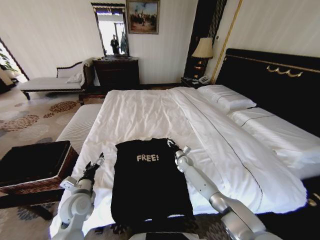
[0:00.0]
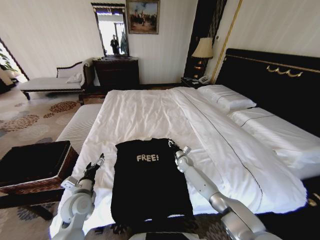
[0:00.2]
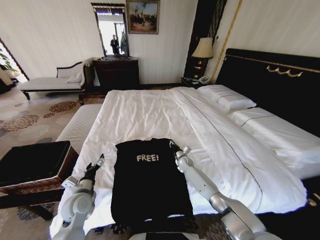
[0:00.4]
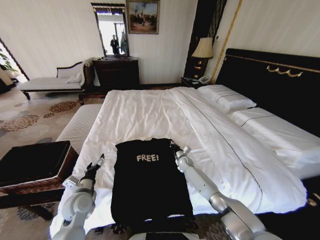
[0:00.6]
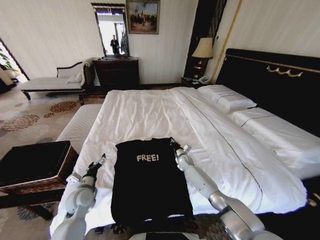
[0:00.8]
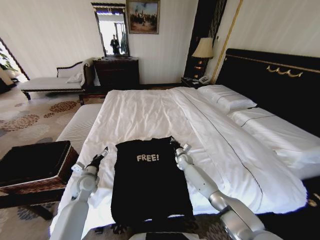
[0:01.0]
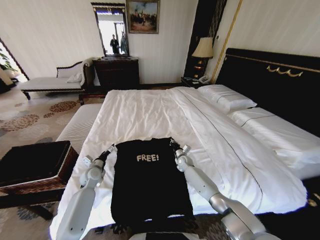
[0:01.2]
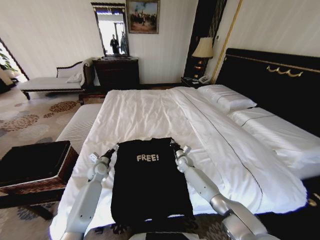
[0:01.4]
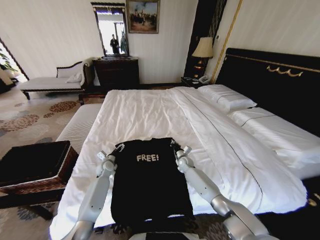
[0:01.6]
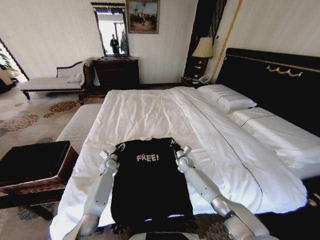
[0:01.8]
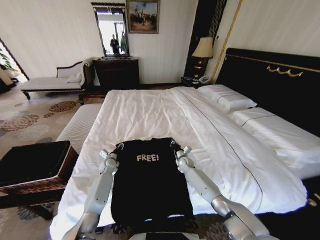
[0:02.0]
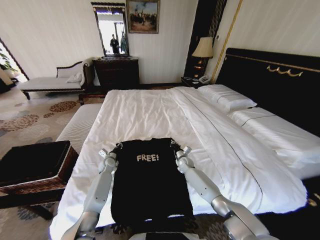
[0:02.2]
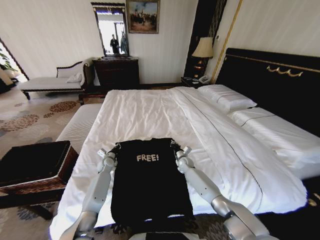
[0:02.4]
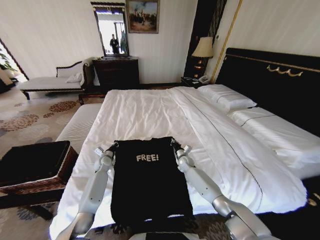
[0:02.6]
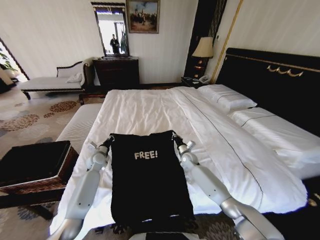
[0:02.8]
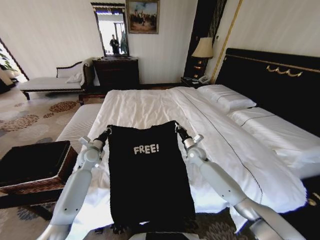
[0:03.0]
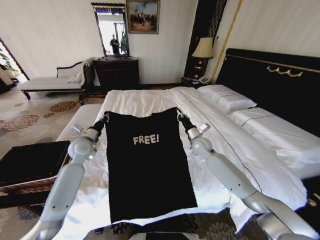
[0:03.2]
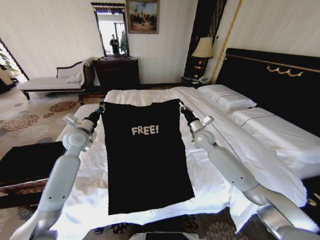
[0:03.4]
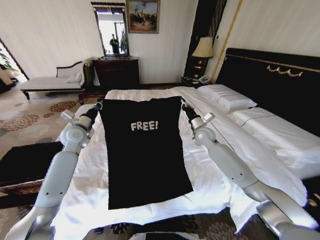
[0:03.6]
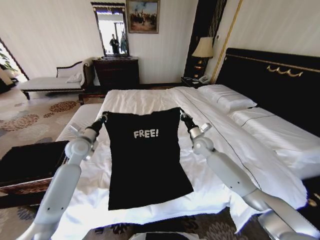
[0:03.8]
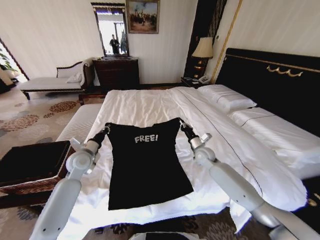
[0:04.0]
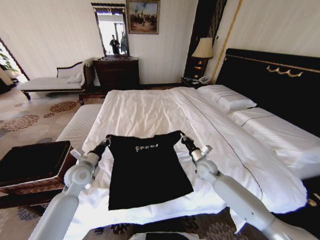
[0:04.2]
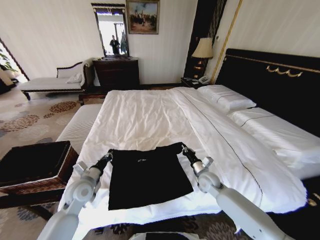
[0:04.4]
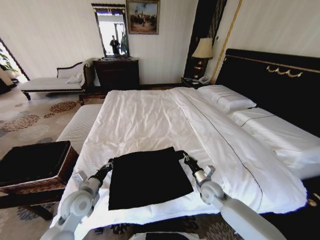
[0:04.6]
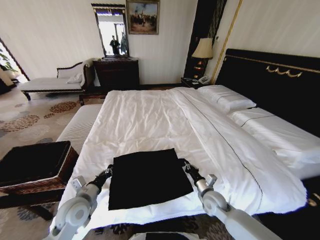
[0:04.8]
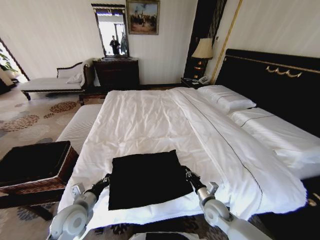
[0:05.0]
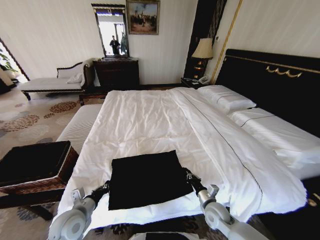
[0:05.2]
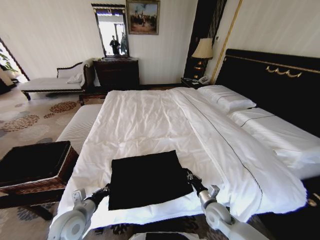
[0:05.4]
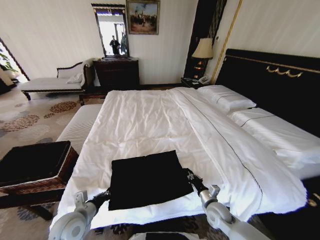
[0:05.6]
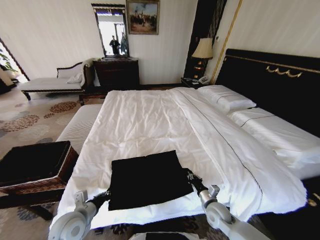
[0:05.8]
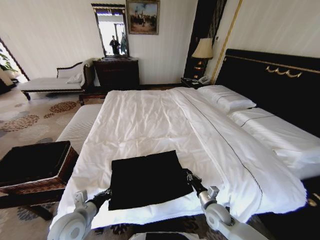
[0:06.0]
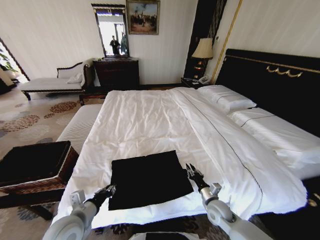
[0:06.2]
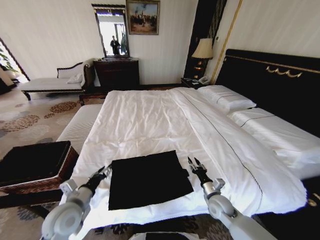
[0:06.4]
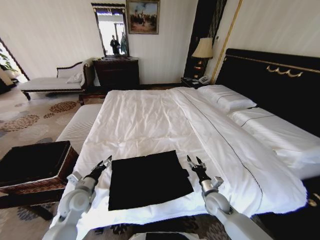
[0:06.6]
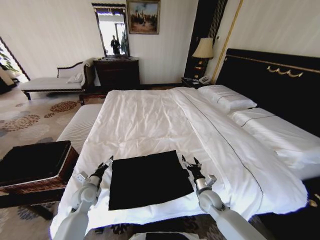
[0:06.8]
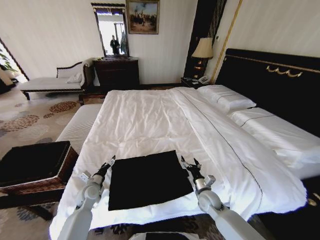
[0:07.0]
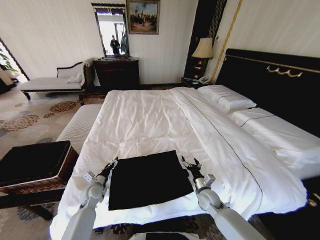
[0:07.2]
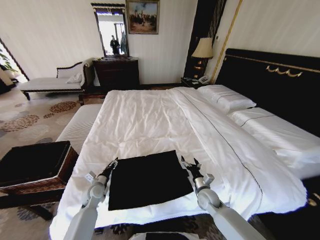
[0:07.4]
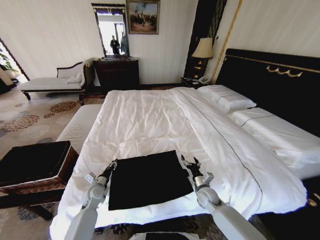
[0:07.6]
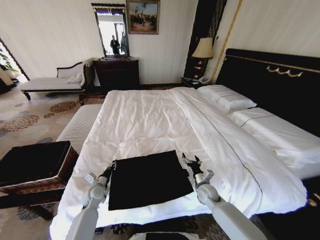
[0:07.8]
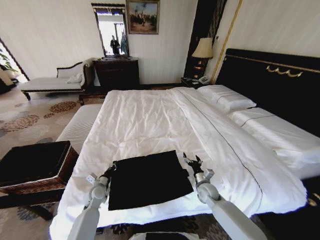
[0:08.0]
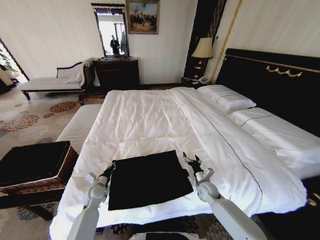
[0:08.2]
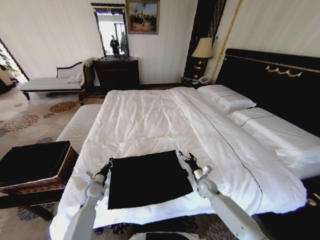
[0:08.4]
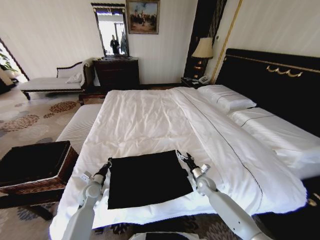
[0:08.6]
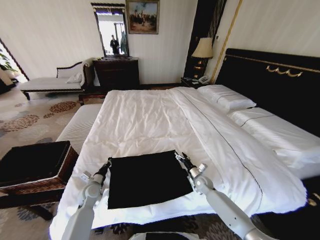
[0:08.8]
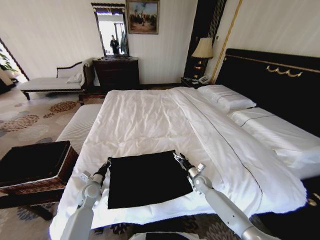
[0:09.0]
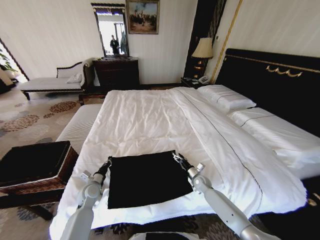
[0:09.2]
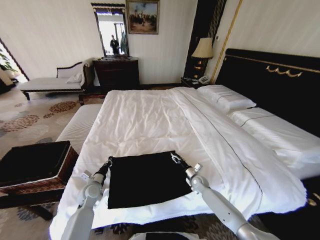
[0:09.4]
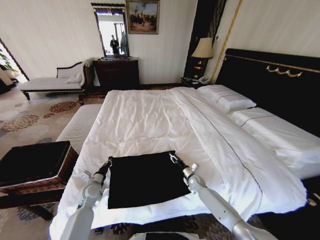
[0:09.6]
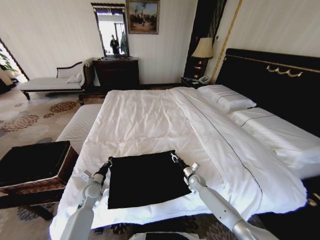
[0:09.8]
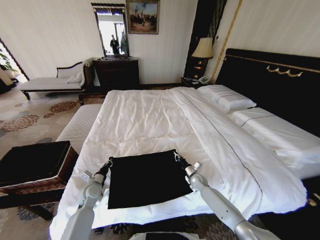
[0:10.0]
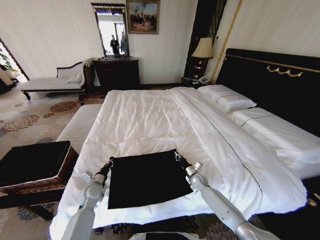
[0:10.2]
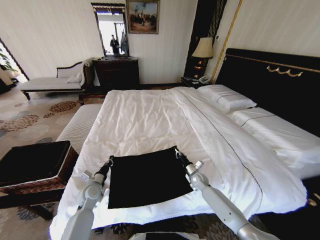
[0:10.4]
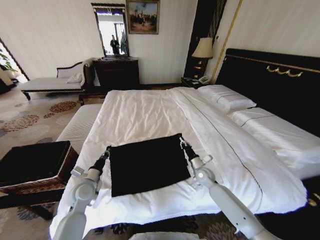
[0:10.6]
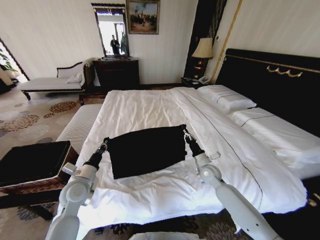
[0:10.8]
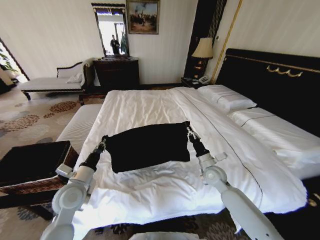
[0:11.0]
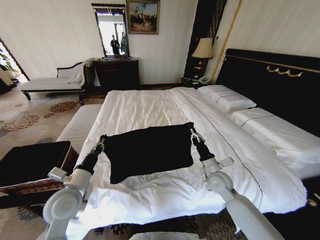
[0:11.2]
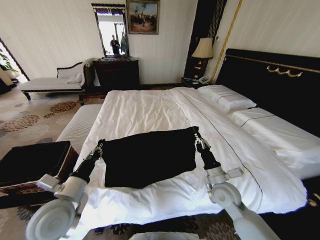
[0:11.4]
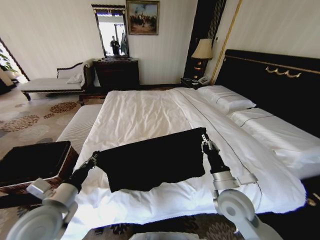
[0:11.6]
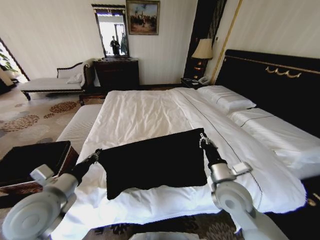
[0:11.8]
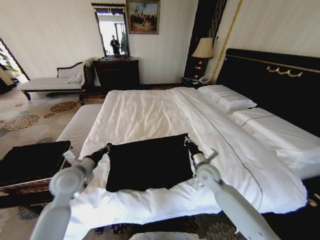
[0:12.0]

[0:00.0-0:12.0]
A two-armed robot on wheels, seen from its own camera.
Task of the whole recording: Fold the clothes on the bed and place them into the basket.
0:00.0 to 0:01.6: The left gripper moves forward and downward, roughly 25 cm. Meanwhile the right gripper closes.
0:01.6 to 0:03.0: The grippers both shift upward by some 15 cm. The left gripper closes.
0:03.0 to 0:04.4: Both grippers travel together backward, about 15 cm. The right gripper goes upward and returns, roughly 10 cm each way.
0:04.4 to 0:06.0: The right gripper moves backward and downward, some 15 cm, while the left gripper travels backward by some 10 cm.
0:06.0 to 0:07.6: The right gripper goes roughly 10 cm forward, and opens. The left gripper is displaced forward and downward by about 20 cm, and opens its fingers.
0:07.6 to 0:09.0: The left gripper closes. Meanwhile the right gripper goes some 10 cm forward.
0:09.0 to 0:10.4: The right gripper closes.
0:10.4 to 0:12.0: The grippers both shift upward by about 20 cm.

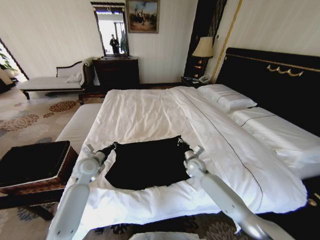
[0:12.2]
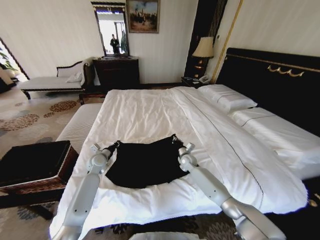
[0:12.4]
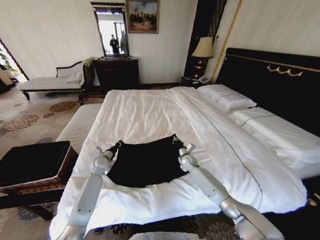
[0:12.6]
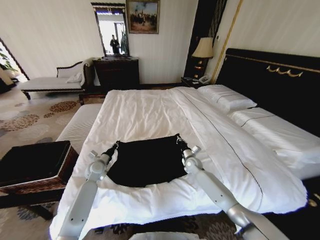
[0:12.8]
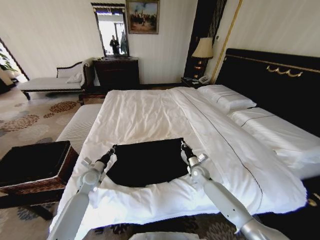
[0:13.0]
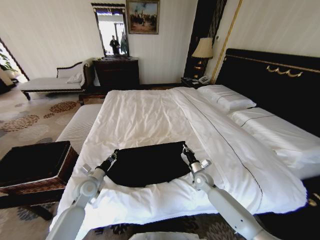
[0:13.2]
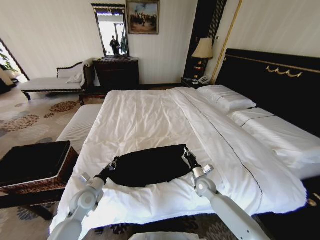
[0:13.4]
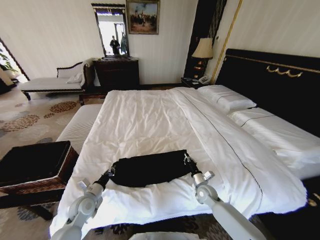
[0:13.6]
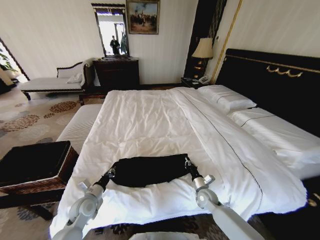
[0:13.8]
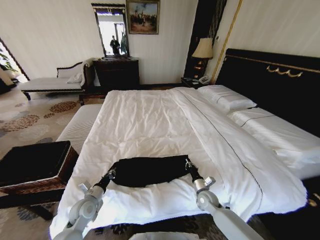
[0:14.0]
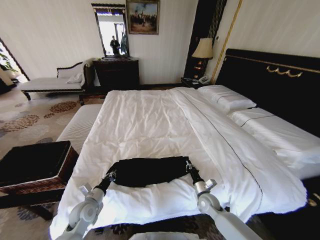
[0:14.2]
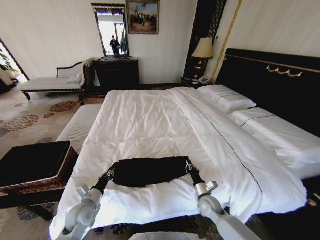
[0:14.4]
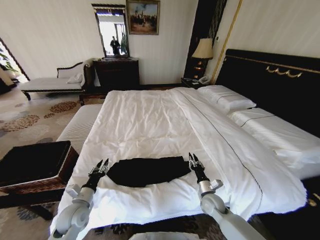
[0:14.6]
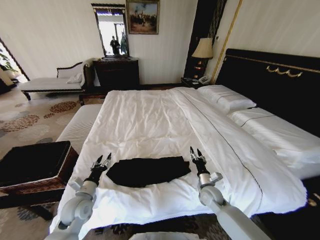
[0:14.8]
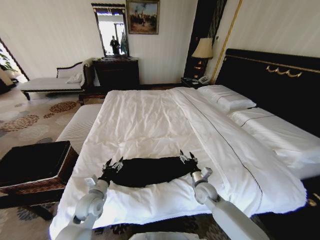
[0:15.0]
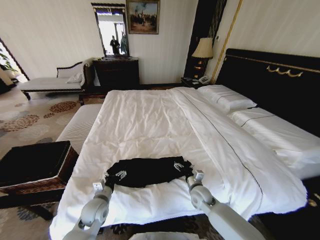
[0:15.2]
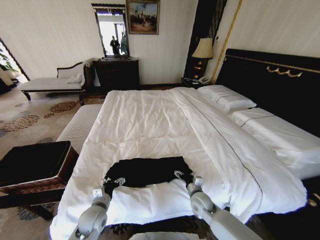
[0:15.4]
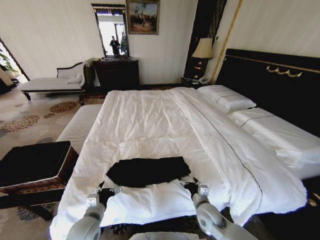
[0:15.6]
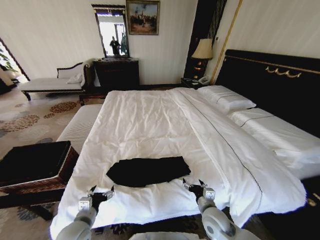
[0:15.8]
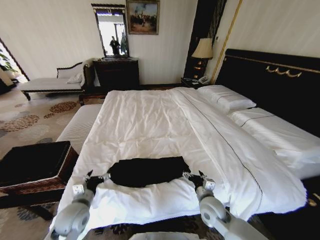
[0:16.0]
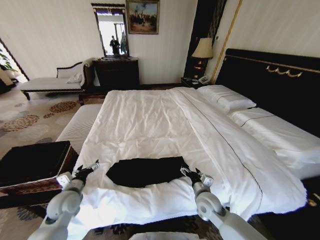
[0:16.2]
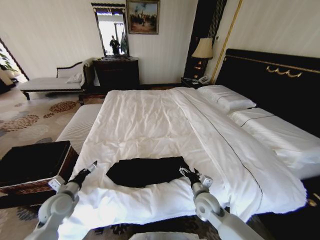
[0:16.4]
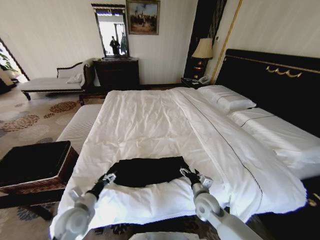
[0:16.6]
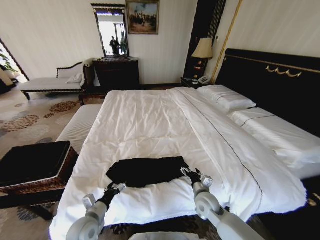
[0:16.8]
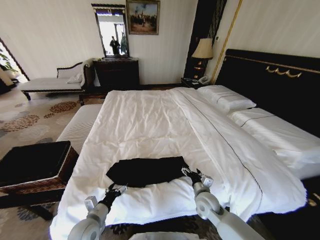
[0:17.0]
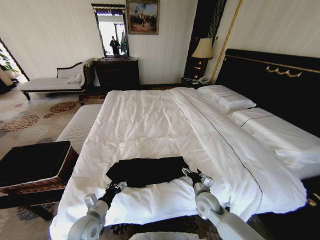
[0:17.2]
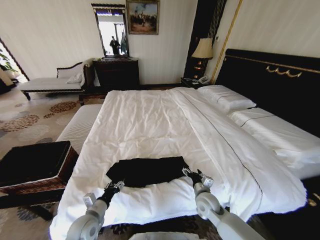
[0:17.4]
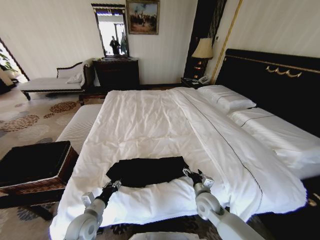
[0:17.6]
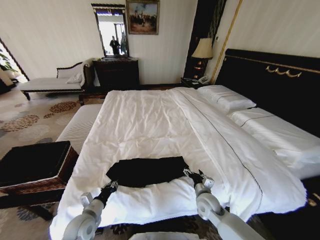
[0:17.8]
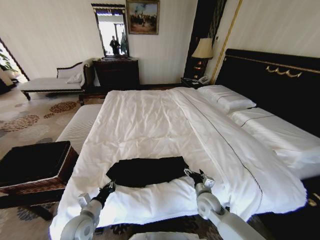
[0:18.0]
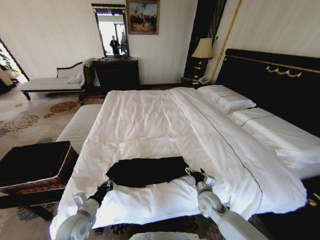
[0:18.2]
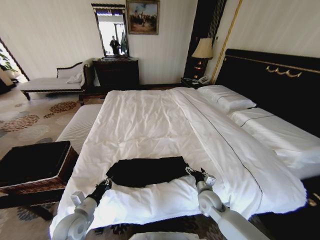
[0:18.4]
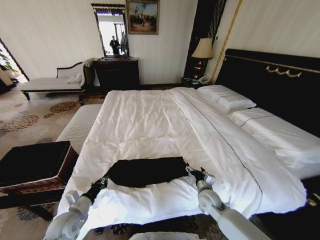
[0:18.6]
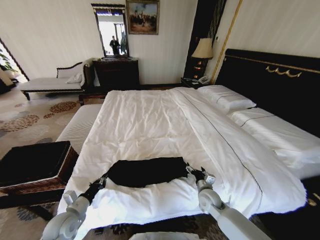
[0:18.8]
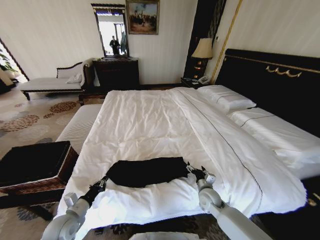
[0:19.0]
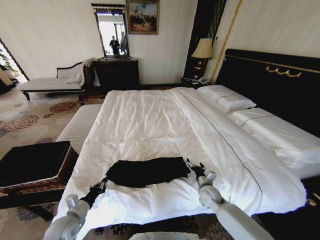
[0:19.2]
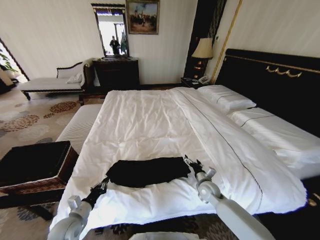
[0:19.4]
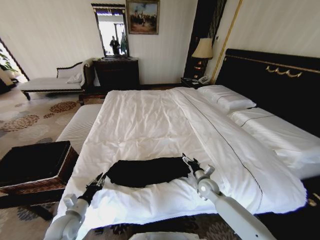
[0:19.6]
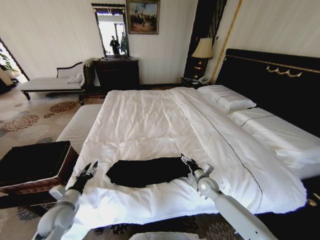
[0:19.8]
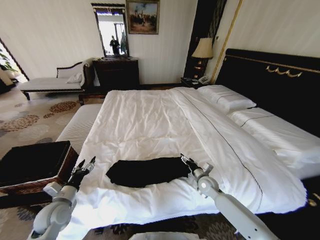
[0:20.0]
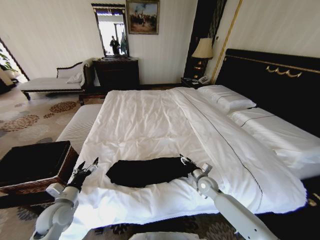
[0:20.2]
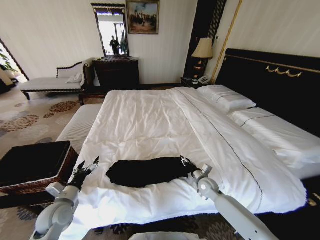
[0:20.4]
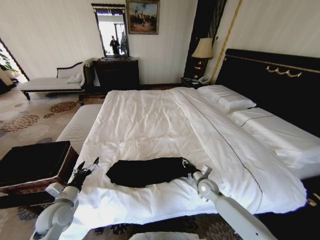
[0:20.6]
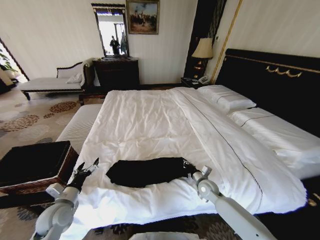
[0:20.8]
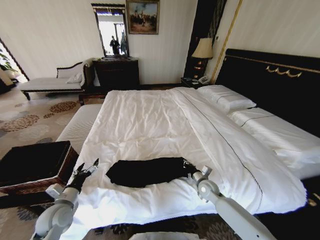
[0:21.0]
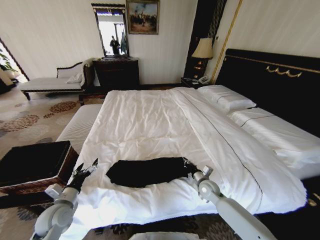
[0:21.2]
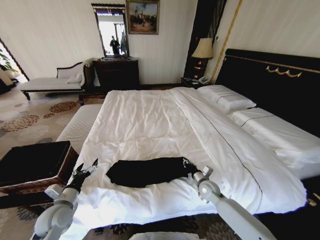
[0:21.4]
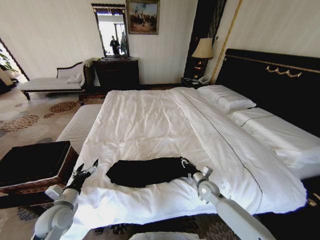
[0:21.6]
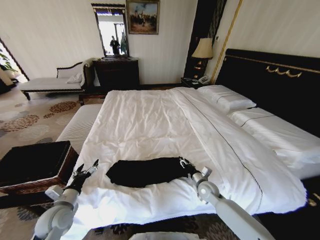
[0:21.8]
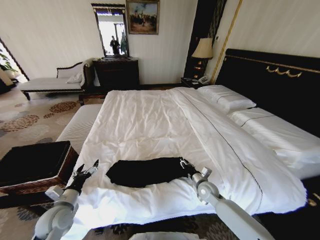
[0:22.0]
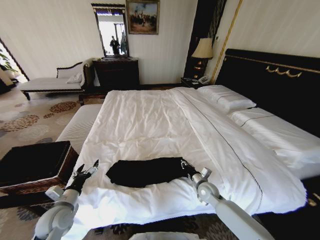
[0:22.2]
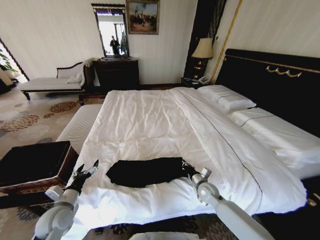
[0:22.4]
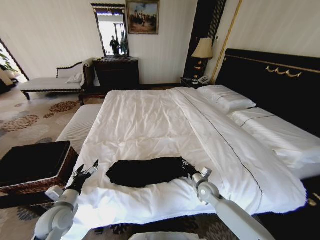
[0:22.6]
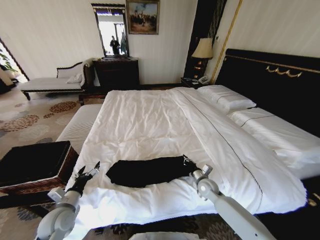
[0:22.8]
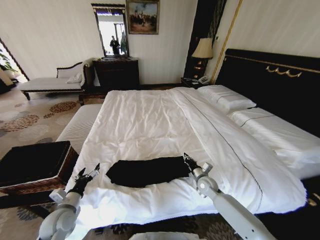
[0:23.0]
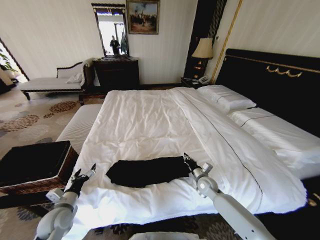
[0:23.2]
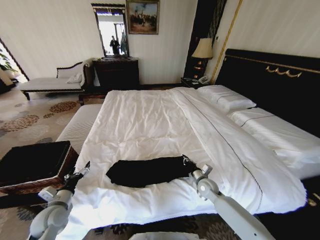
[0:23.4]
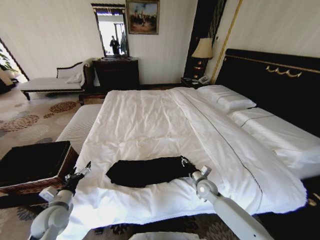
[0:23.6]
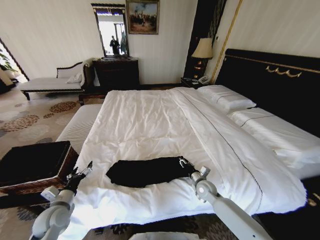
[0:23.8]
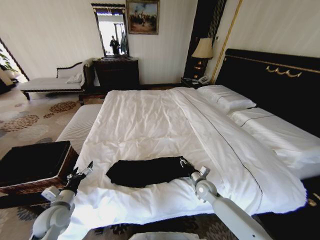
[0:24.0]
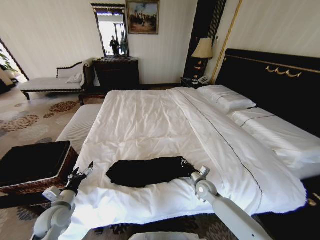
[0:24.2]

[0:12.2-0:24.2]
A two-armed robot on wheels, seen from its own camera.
Task of the whole recording: Fold the clothes on the bed and place them into the basket.
0:12.2 to 0:13.8: Both grippers move downward and backward, approximately 15 cm.
0:13.8 to 0:15.2: The right gripper travels to the left by some 5 cm, and opens its fingers, while the left gripper is displaced to the right by some 5 cm, and opens up.
0:15.2 to 0:16.6: The left gripper moves to the left, roughly 5 cm.
0:16.6 to 0:18.2: The left gripper closes.
0:18.2 to 0:19.8: The left gripper is displaced to the left by some 5 cm, and opens its fingers. Meanwhile the right gripper moves forward, approximately 5 cm.
0:19.8 to 0:21.2: The left gripper opens its fingers, while the right gripper closes its fingers.
0:21.2 to 0:22.6: The right gripper opens and closes again.
0:22.6 to 0:24.2: The right gripper opens and closes again.
